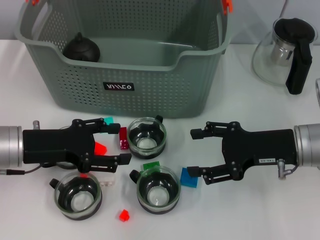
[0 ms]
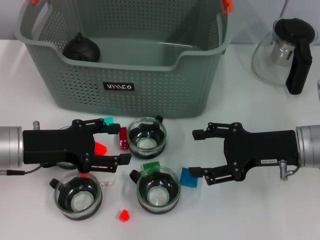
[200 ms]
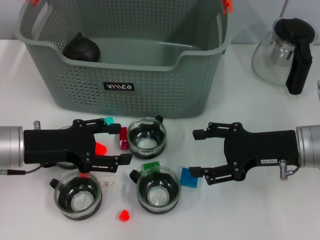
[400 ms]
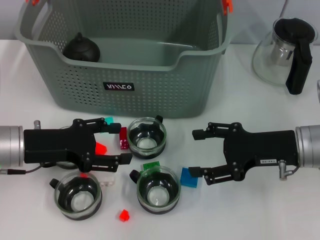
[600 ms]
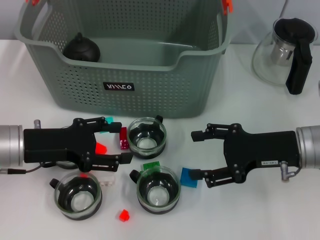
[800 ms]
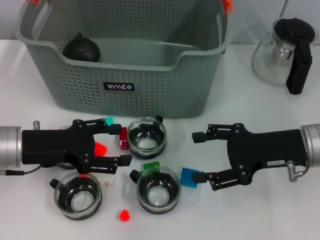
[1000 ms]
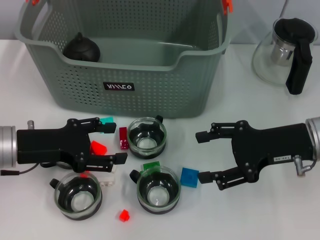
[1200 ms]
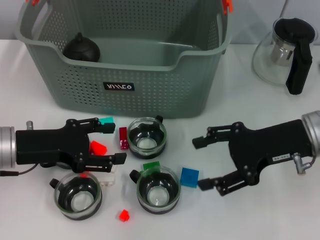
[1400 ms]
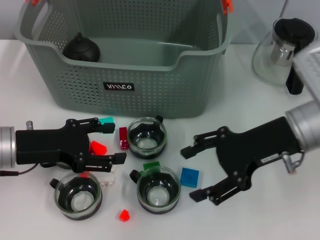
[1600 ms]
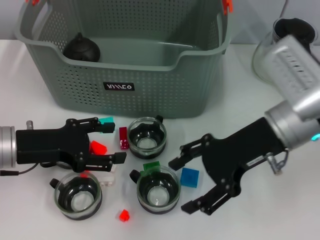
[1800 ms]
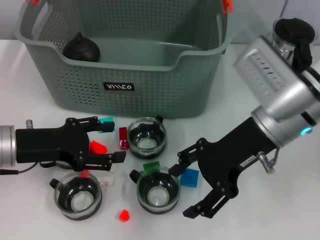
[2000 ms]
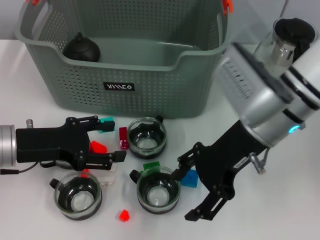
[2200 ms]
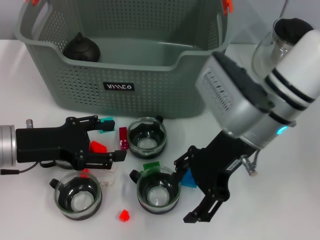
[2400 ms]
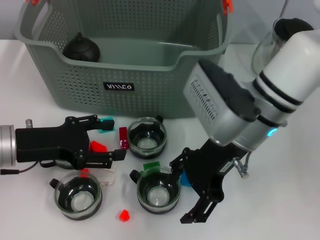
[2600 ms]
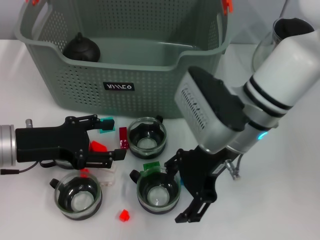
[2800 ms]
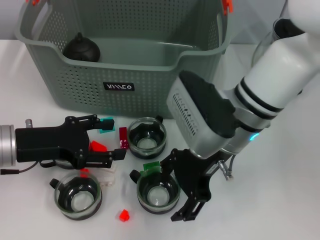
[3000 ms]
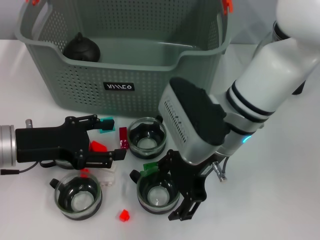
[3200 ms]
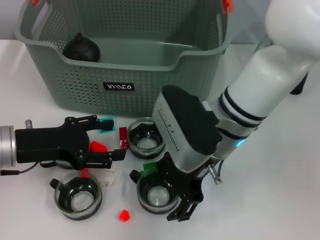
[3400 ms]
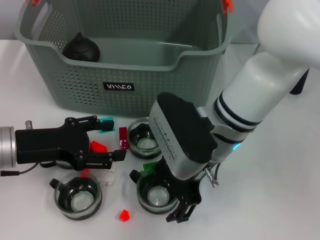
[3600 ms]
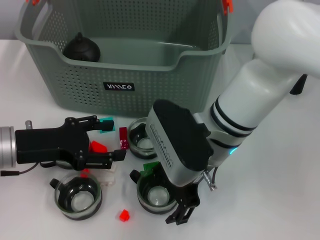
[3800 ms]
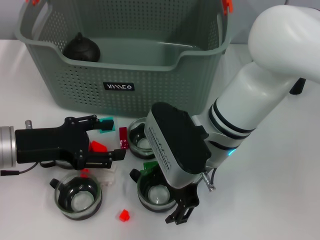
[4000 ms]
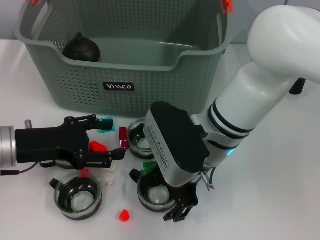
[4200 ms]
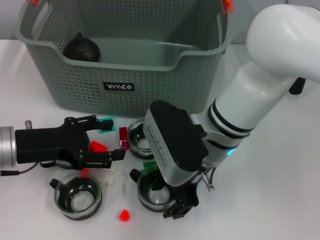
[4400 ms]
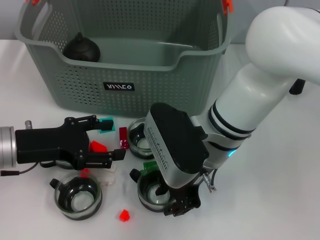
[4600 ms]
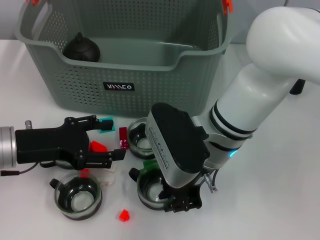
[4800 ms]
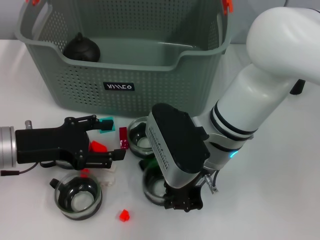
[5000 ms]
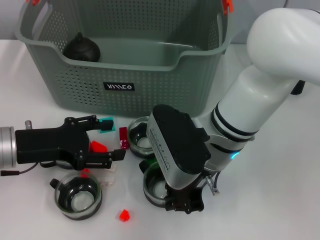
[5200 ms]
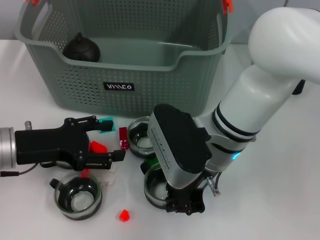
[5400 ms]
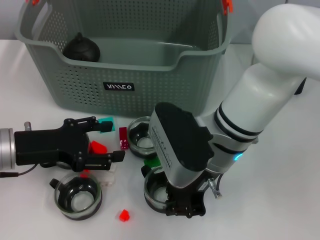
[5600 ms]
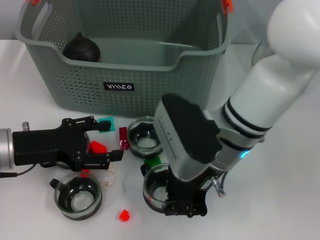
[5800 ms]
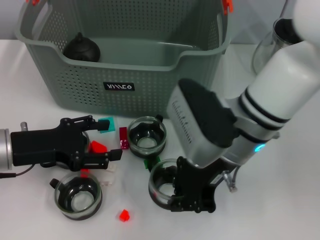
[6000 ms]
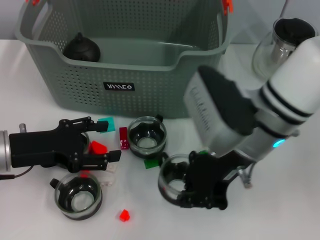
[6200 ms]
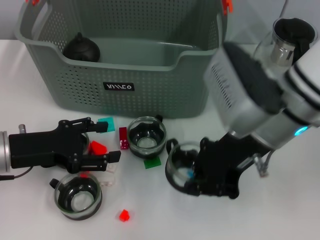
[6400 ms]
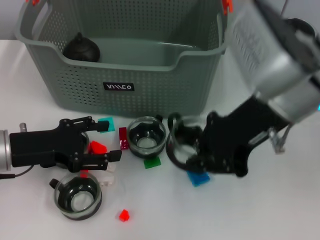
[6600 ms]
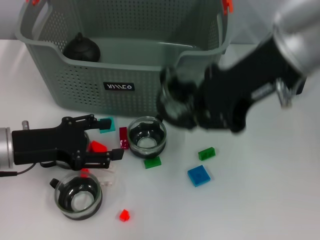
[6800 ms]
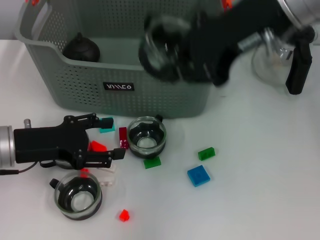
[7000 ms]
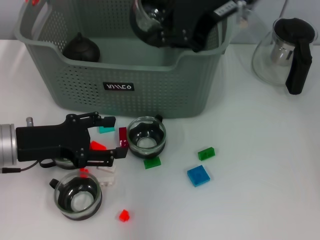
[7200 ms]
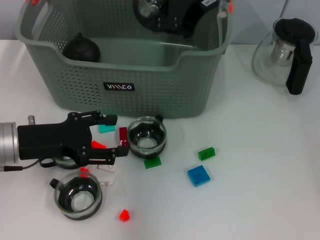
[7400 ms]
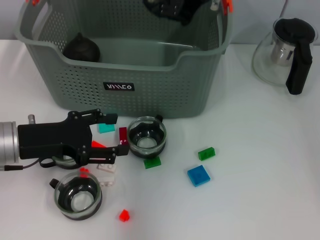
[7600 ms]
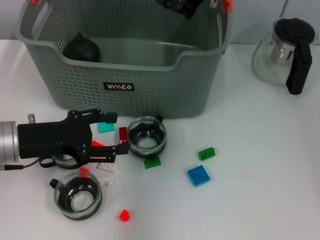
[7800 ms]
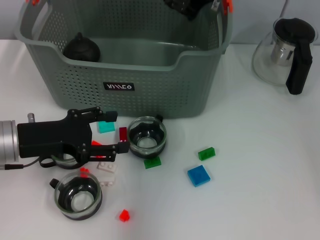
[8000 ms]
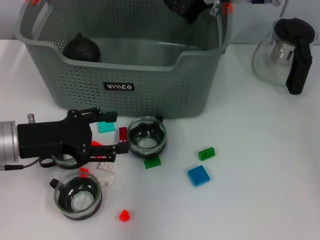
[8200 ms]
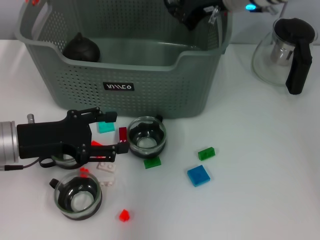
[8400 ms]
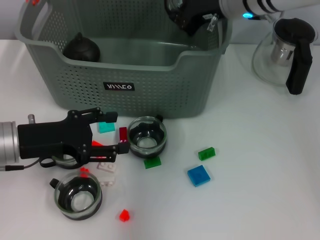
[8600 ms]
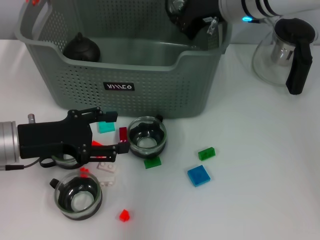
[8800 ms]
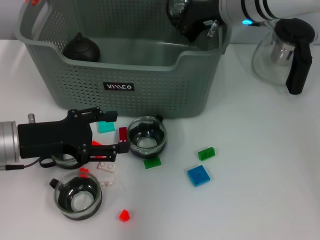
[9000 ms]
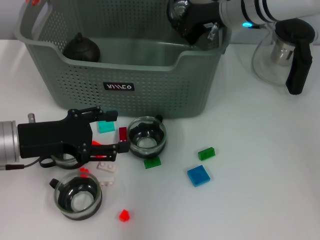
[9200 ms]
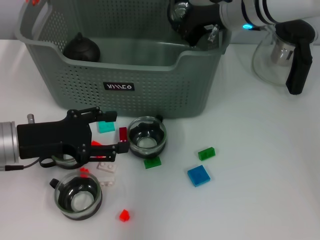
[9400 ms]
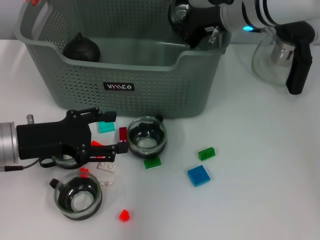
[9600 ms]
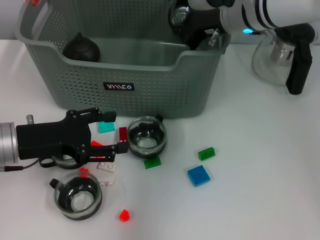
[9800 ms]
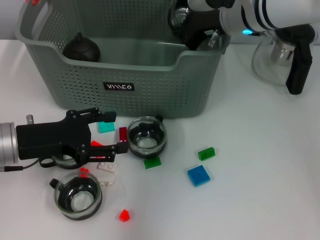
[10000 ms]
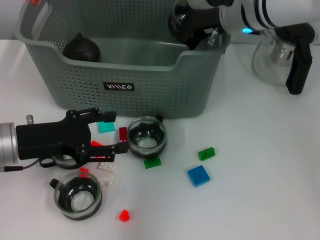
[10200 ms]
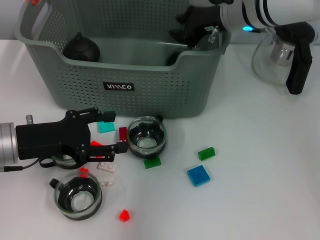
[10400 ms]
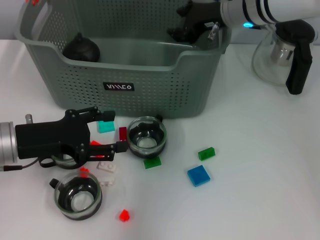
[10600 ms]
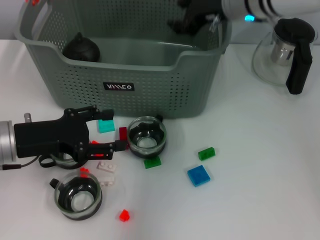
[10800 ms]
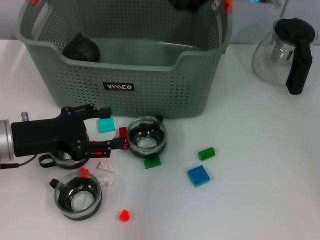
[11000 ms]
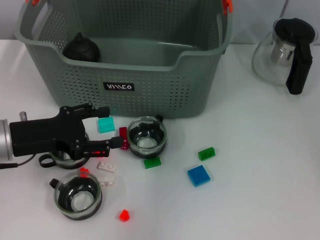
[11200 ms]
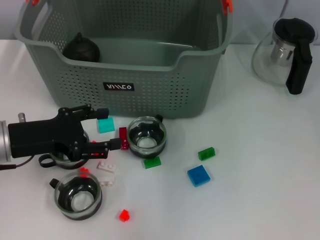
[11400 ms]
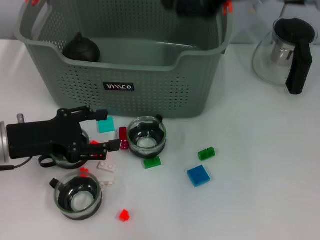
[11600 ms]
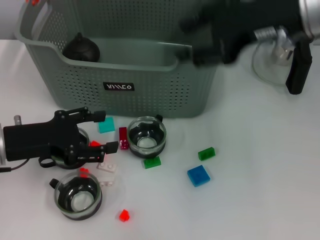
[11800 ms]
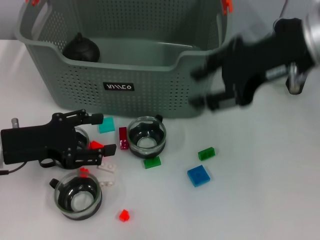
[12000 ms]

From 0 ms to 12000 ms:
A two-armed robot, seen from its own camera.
Task of the whole recording: pick up the teacup on the table and place it into the storage bin, pick up the block on the table and place it into the storage bin.
Step, from 0 ms to 5000 ms: Grasp the cup with right gripper.
Step, from 5200 ms to 10400 ms: Place the cup in the storage box with right gripper.
From 0 ms to 1600 ms: The right gripper shifts about 5 cm upward.
From 1600 ms to 3000 ms: The right gripper moves to the left, some 10 cm.
From 4400 ms to 6000 ms: The right gripper closes its fingers.
From 6000 ms to 7600 ms: The right gripper goes about 20 cm upward and forward.
From 7600 ms to 9000 ms: The right gripper is displaced downward by some 10 cm.
From 9000 ms to 10400 ms: The two grippers keep their place.
From 10400 ms to 12000 ms: The right gripper heads backward, upward and to the right, covering about 15 cm, and opens its fingers.

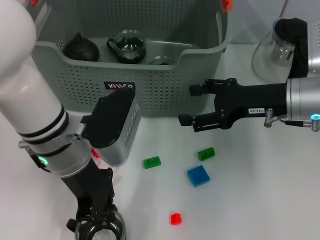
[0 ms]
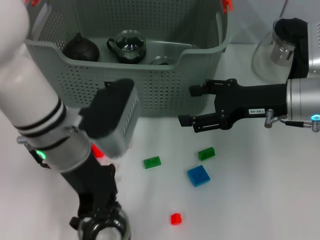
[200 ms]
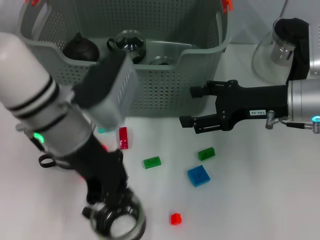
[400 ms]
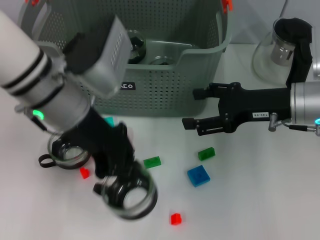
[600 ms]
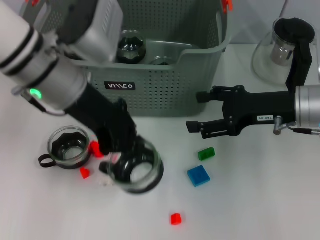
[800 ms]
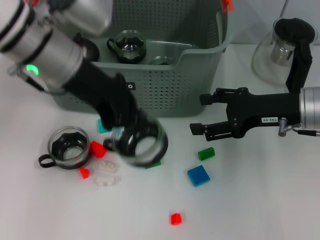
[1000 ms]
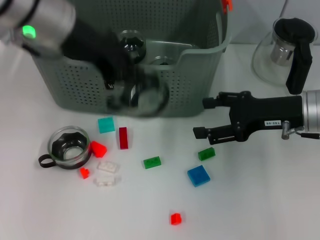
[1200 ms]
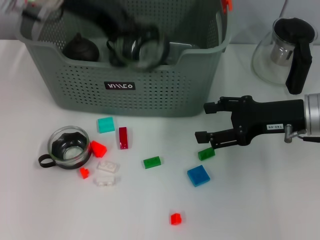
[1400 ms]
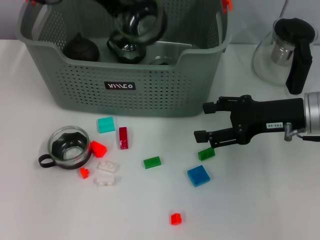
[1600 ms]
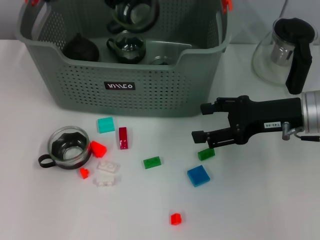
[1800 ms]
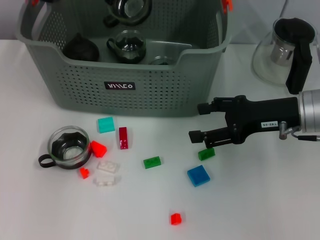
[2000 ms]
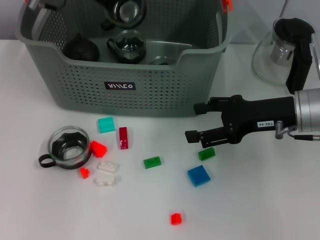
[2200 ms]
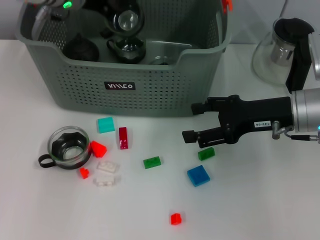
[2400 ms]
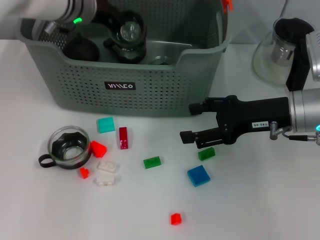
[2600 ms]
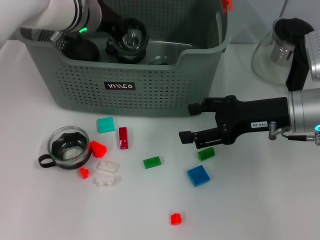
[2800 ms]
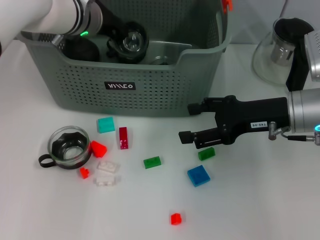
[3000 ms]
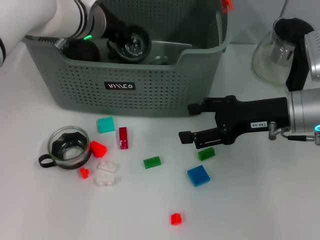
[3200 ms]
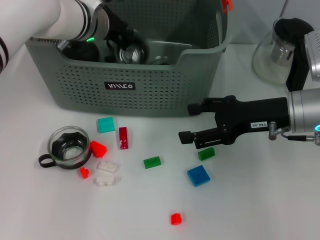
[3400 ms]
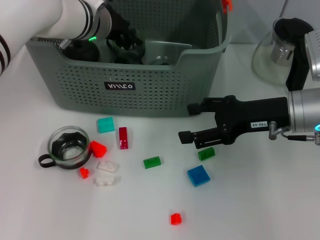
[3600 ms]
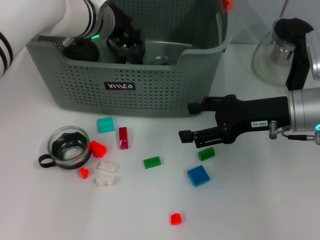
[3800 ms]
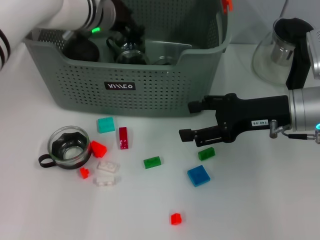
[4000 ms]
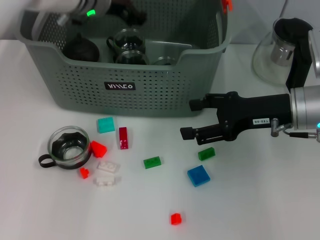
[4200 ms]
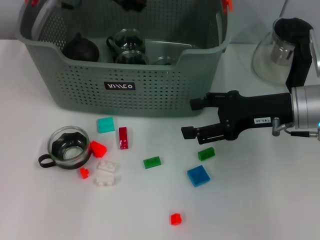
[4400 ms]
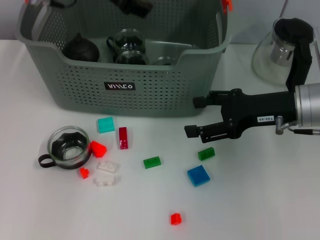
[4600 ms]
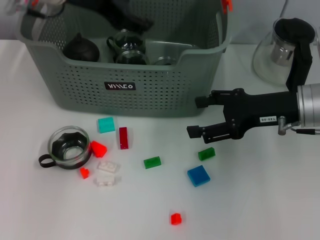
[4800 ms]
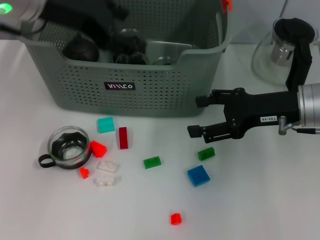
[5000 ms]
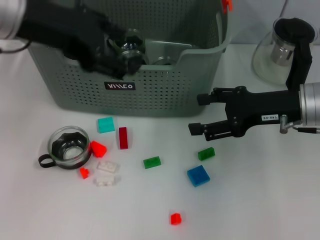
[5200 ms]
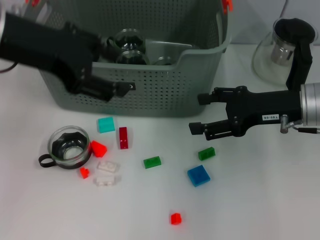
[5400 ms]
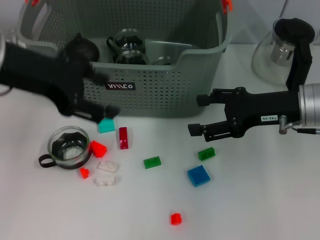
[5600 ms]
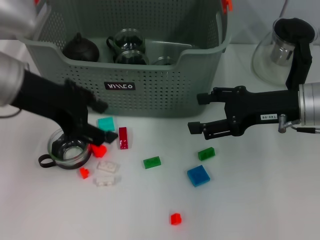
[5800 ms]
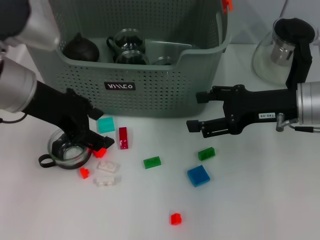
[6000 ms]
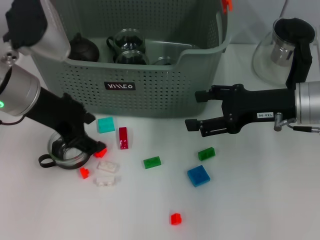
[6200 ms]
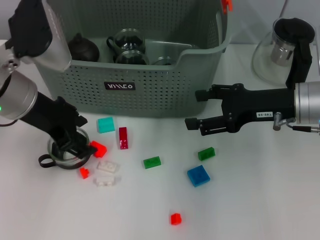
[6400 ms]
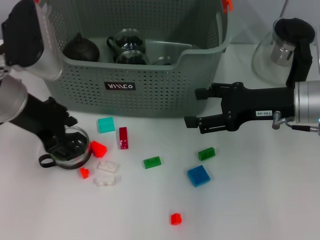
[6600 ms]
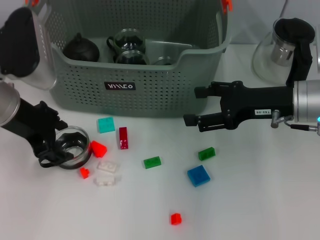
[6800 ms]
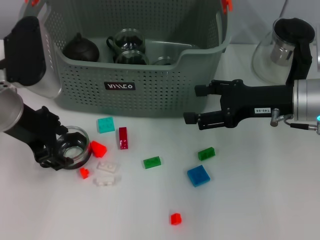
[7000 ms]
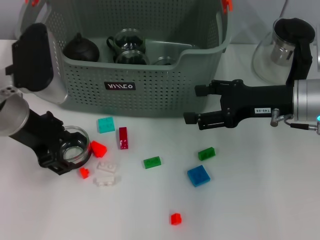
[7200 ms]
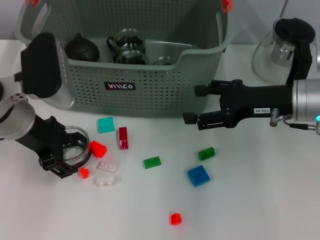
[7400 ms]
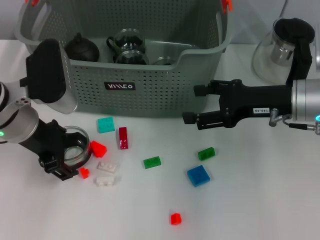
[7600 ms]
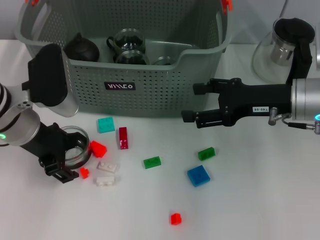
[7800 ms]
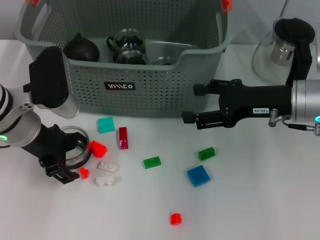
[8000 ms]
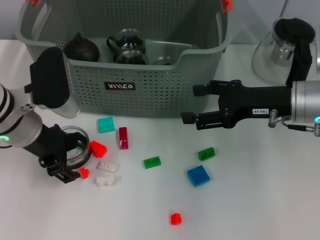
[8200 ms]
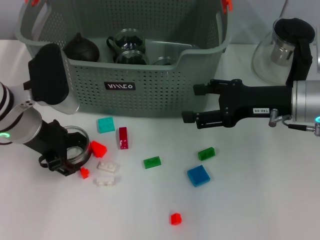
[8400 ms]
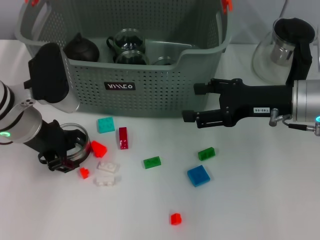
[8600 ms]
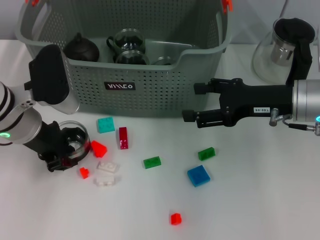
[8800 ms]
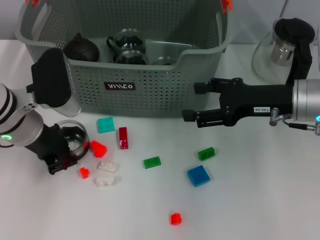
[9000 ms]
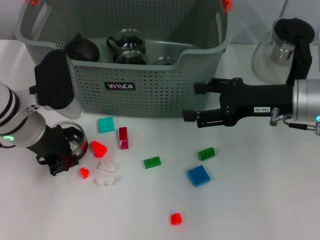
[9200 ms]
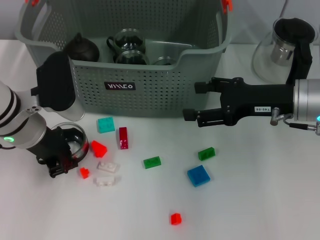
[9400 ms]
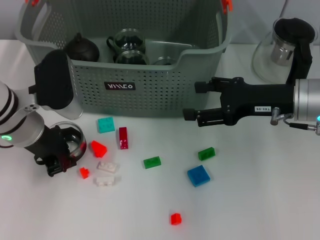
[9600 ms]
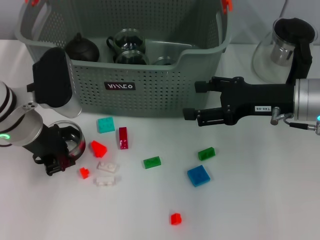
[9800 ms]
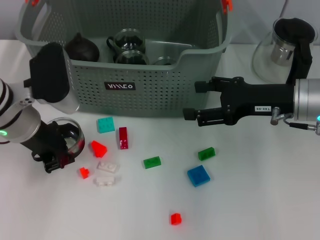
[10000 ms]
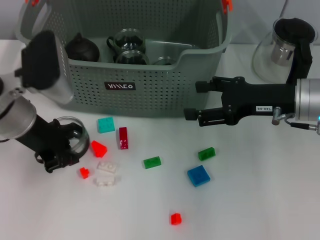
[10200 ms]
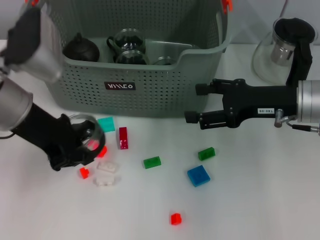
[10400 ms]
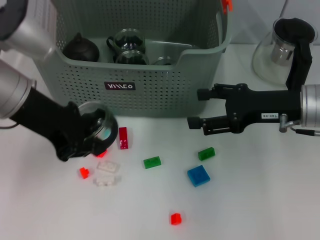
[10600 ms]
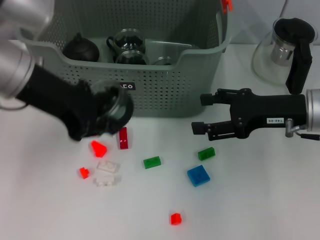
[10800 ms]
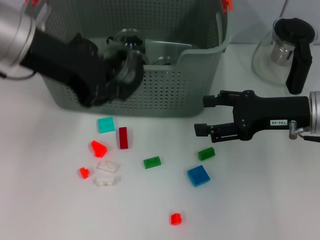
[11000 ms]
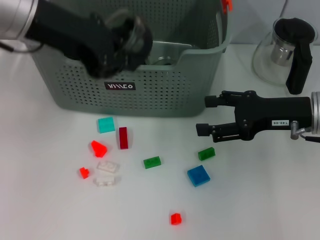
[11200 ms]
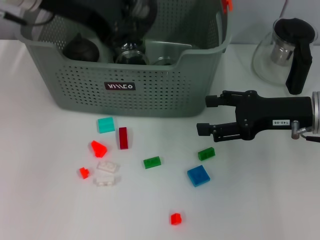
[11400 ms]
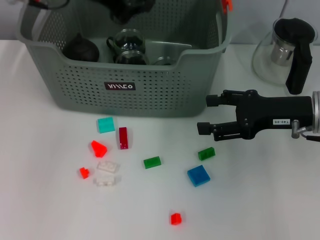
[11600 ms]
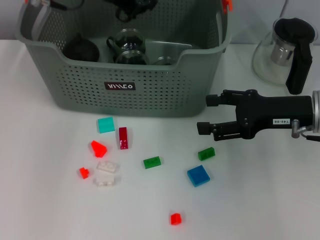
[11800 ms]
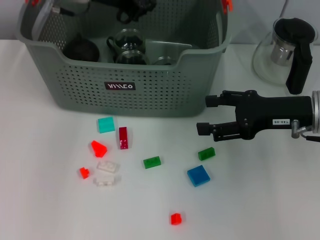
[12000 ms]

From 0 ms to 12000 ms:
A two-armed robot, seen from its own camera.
Task of the whole recording: pick up the teacup on the table and place it into the storage bin, pick up the block on the table and place it into the storage bin.
Step, from 0 ms to 3400 ms: Place the cup in the storage box with left gripper.
Step, from 3600 ms to 9200 ms: Grasp the cup with left gripper.
From 0 ms to 1600 ms: The left gripper heads upward and forward, covering about 20 cm.
From 1600 ms to 3000 ms: The left gripper travels downward by about 10 cm.
From 3000 ms to 4400 ms: The left gripper travels upward by approximately 10 cm, and opens.
From 4400 ms to 6000 ms: The left gripper heads backward and to the left, covering approximately 15 cm.
From 6000 ms to 7600 ms: The left gripper moves downward, approximately 5 cm.
From 7600 ms to 9000 ms: The left gripper closes its fingers.
From 9000 ms to 10400 ms: The left gripper goes some 5 cm upward.
From 10400 ms to 12000 ms: The left gripper shifts approximately 15 cm forward and to the right.
